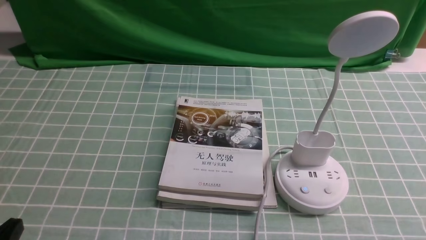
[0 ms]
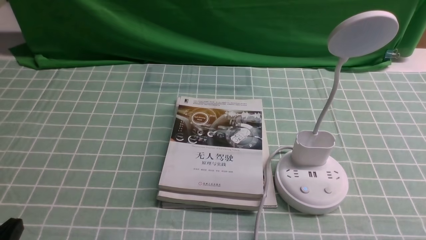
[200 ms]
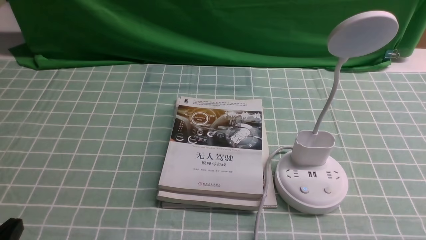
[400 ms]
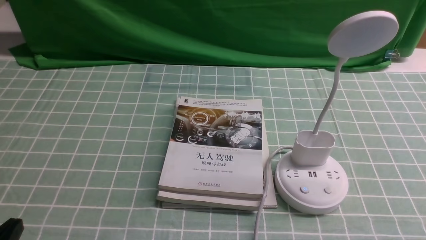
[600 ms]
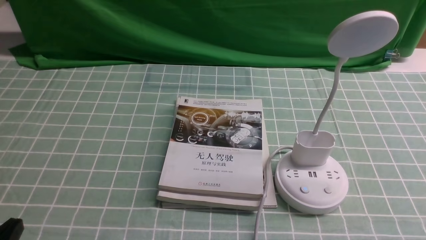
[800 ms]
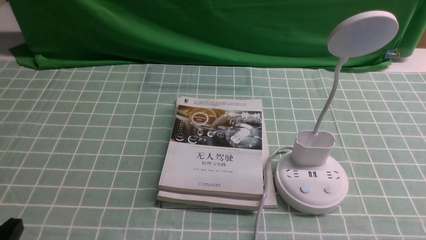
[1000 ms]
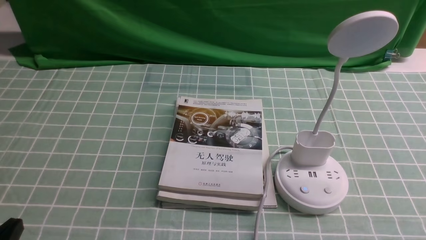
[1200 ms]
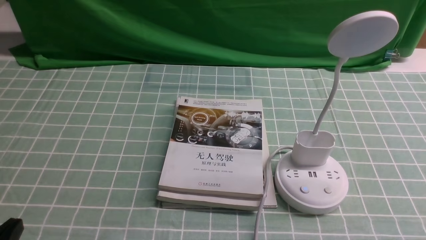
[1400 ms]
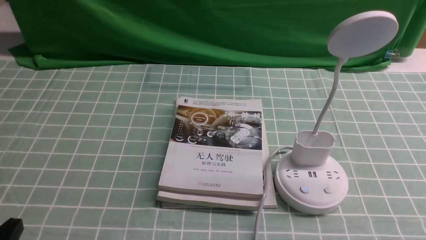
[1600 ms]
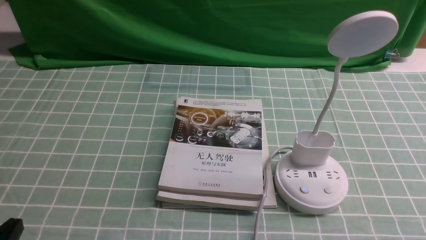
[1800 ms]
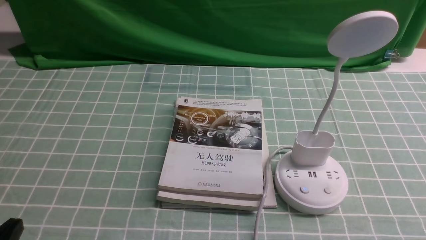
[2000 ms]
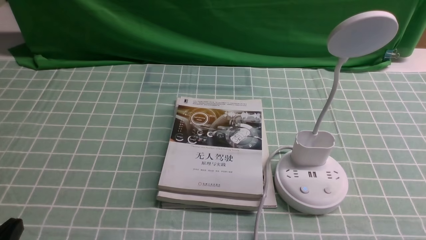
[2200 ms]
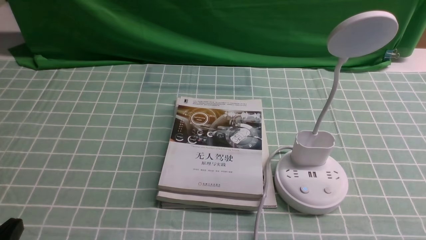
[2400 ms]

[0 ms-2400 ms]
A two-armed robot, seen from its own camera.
Task of the whole recording: turn off the desk lamp on the blue coffee tablecloth by hand.
0 ms to 1200 ms: Both grippers stay about where they are.

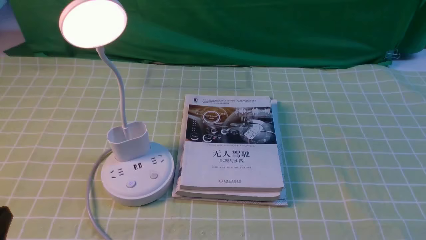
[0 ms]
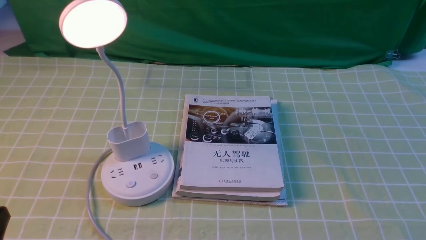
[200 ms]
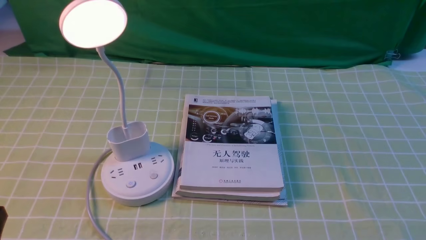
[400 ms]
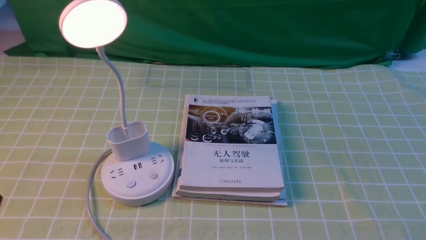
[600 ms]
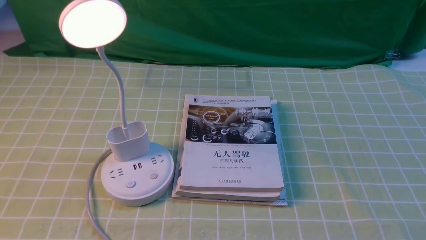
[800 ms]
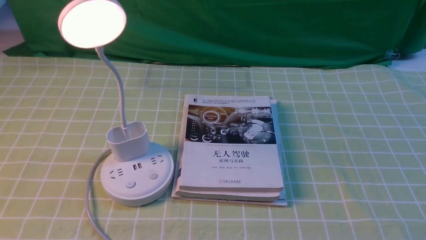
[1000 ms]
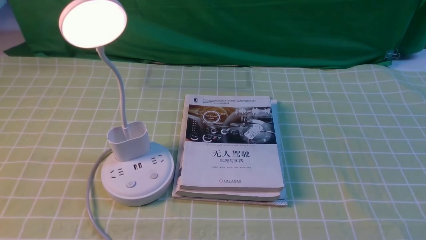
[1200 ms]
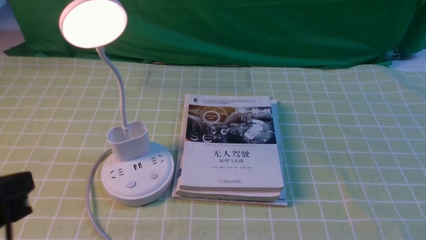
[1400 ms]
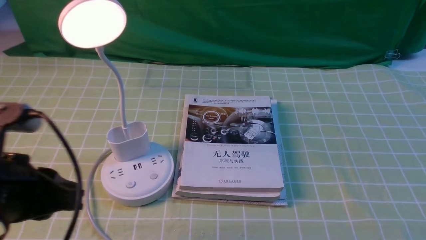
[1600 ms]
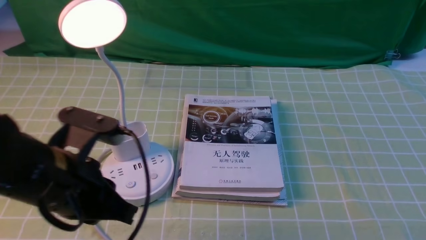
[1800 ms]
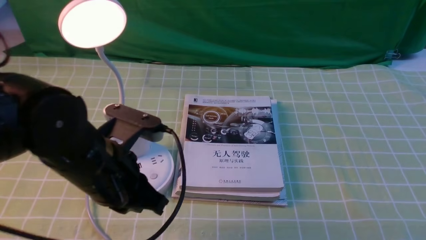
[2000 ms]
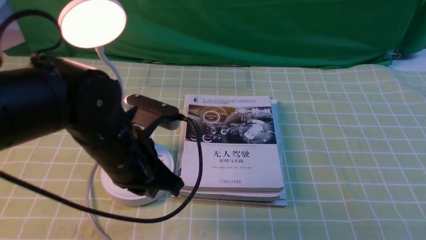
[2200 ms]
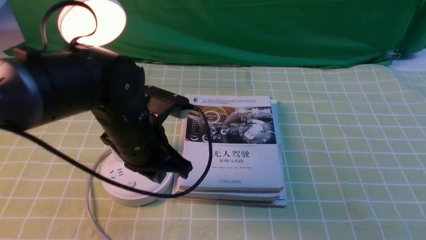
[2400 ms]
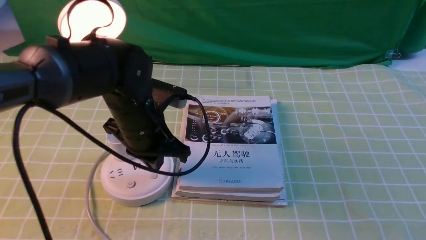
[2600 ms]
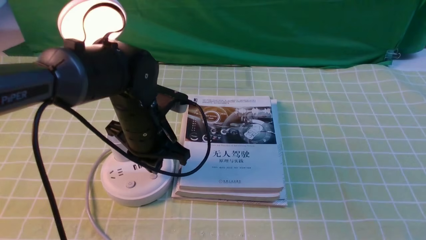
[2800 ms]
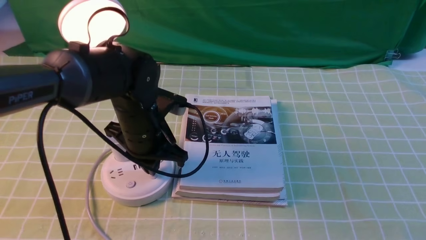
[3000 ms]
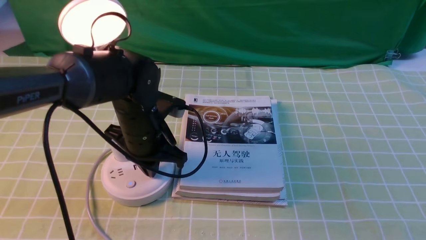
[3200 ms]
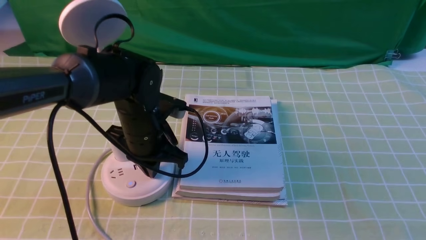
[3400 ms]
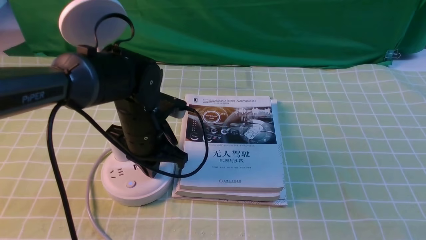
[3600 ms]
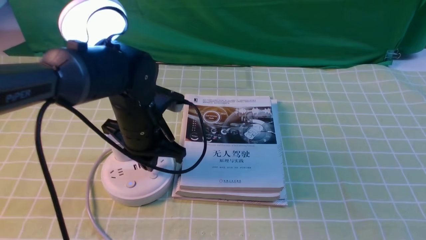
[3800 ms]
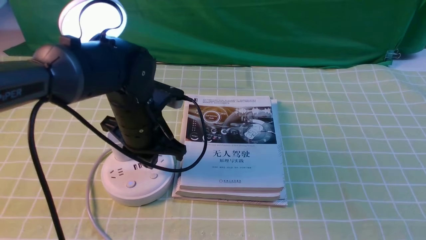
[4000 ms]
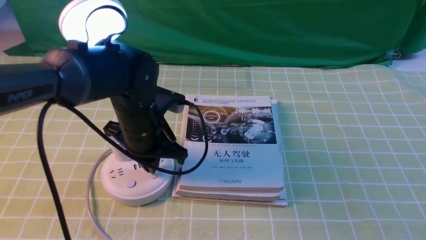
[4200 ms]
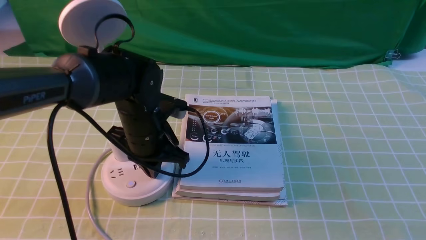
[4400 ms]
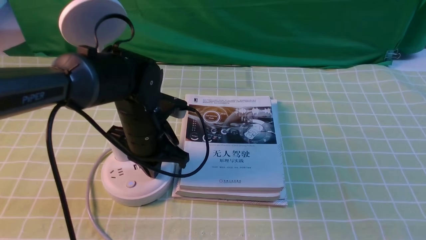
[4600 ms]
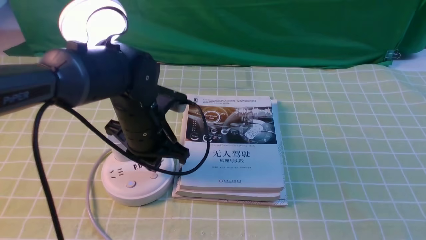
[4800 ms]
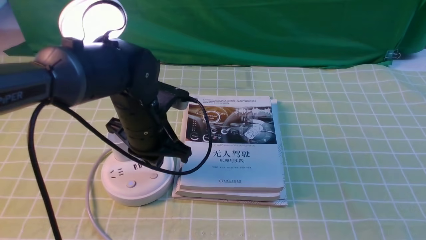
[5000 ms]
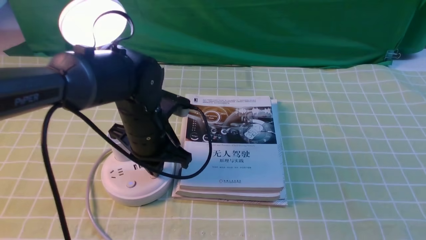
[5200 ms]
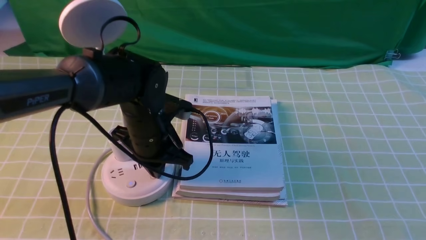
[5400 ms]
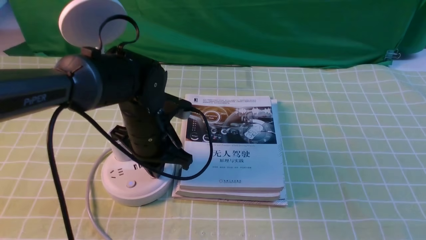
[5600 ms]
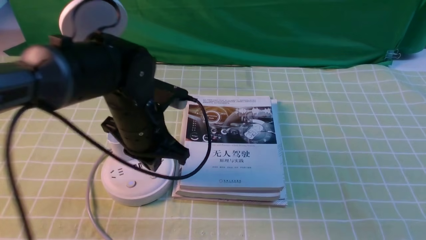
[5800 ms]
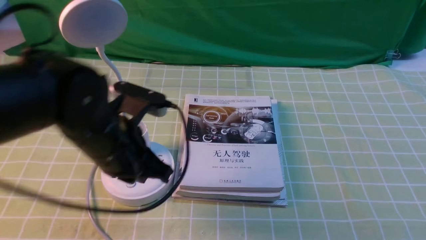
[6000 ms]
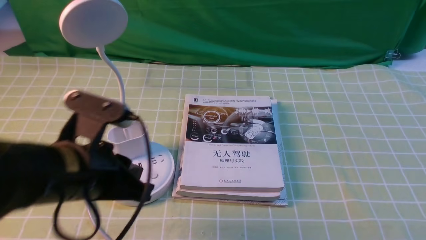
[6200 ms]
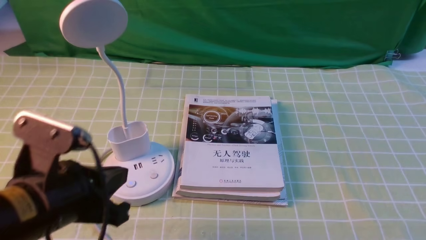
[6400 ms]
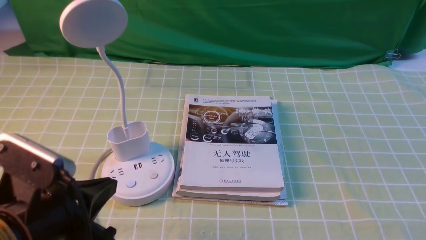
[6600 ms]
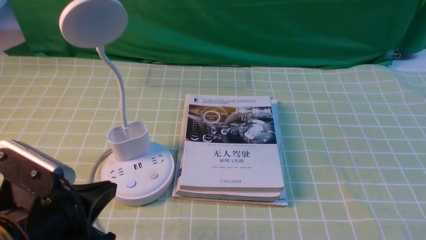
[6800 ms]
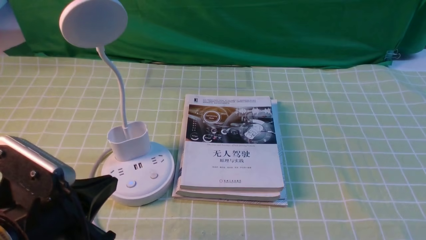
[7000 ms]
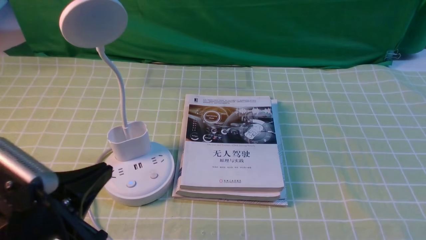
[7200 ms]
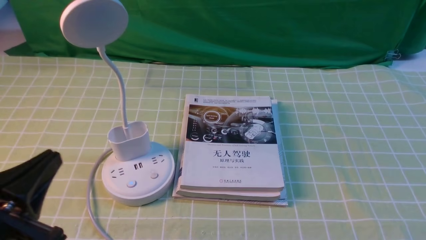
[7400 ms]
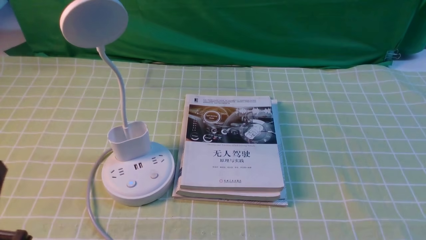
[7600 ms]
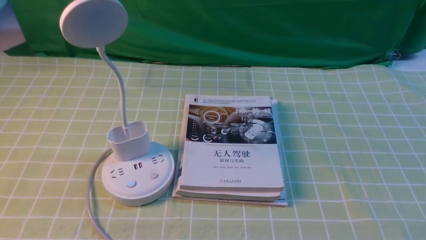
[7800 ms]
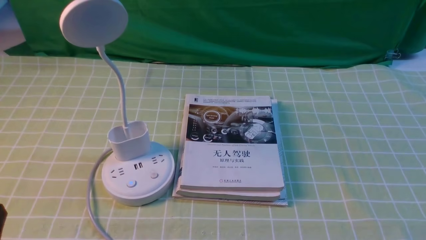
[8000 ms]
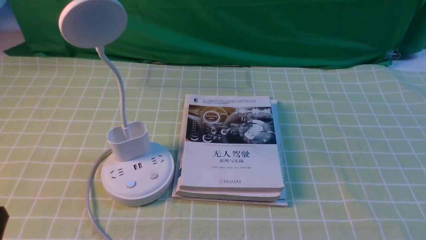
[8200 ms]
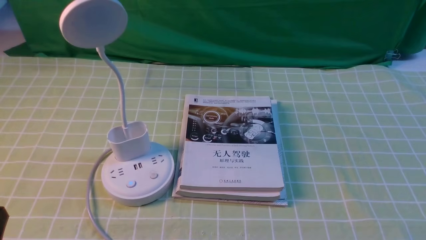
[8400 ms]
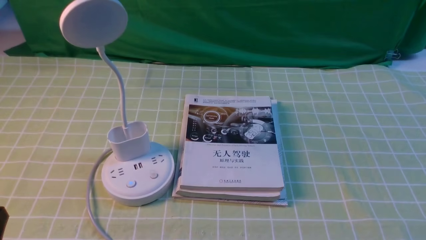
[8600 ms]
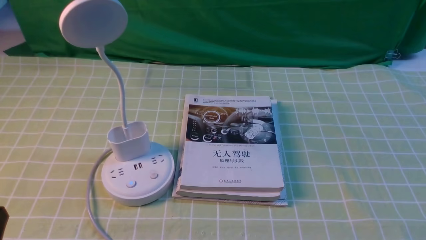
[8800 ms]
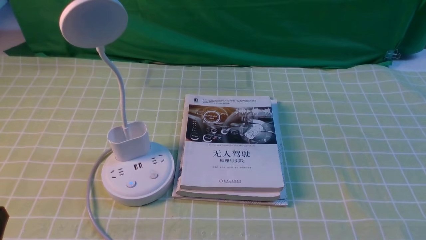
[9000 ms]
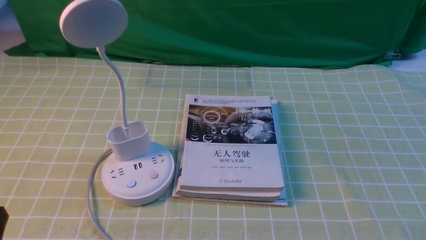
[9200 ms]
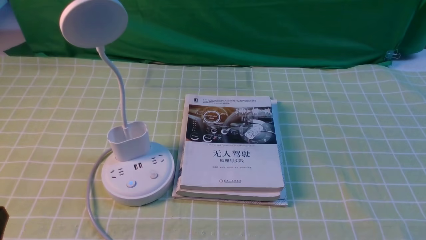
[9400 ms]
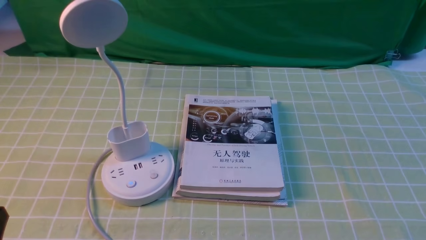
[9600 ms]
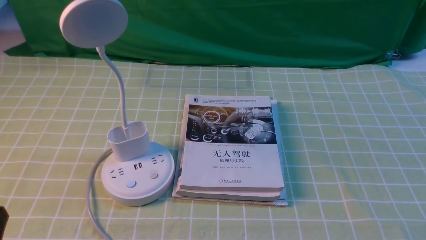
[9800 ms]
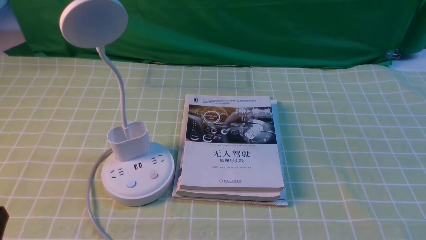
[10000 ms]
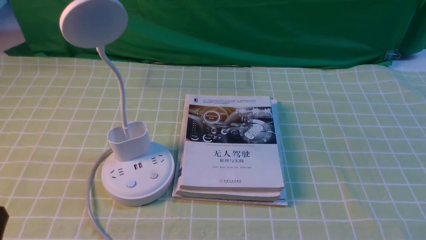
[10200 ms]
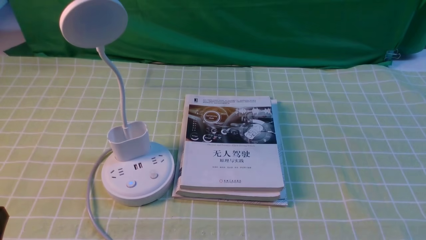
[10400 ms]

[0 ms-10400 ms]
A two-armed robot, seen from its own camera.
Task of the whole recording: turn off the desk lamp on the green coffee tablecloth by hand.
Step, 0 ms to 5800 ms: use the left arm to press the button switch on the lamp holder.
1400 ms to 3000 ms: The left gripper is displaced forward and to the right by about 30 cm.
3000 ms to 4400 ms: The grippers move only a little.
4400 ms to 6000 ms: The left gripper shifts approximately 10 cm backward and upward.
6000 ms to 7400 ms: The left gripper goes about 20 cm backward and to the left, and opens, then closes once more.
7400 ms to 9000 ms: The left gripper travels backward by some 5 cm.
9000 ms to 10400 ms: The two grippers keep their place.

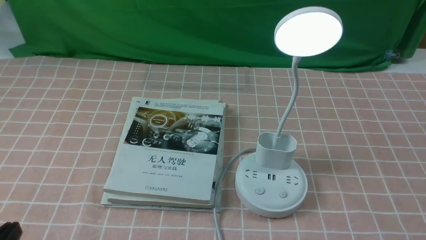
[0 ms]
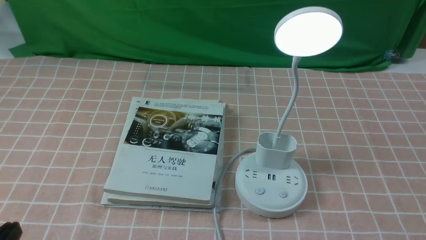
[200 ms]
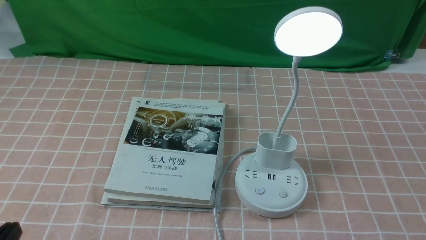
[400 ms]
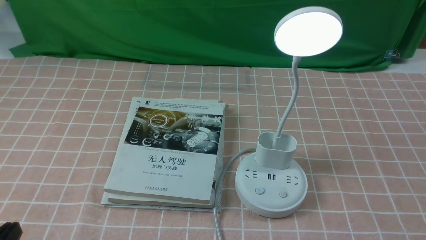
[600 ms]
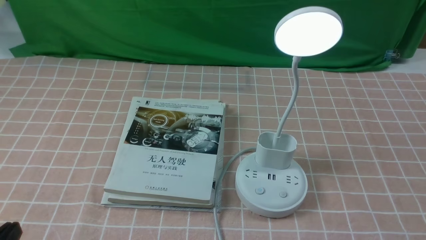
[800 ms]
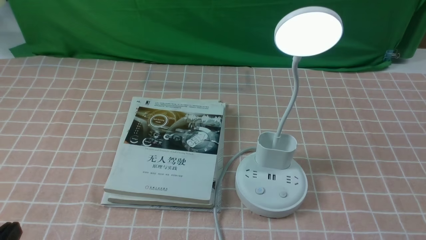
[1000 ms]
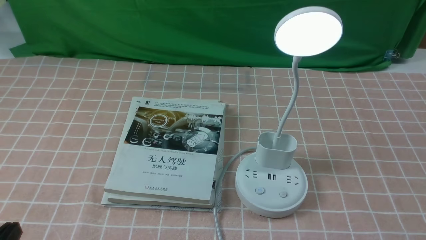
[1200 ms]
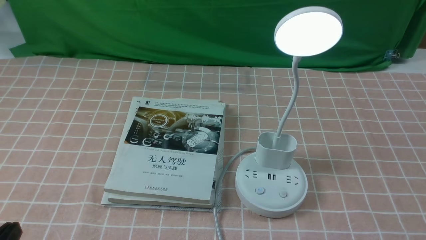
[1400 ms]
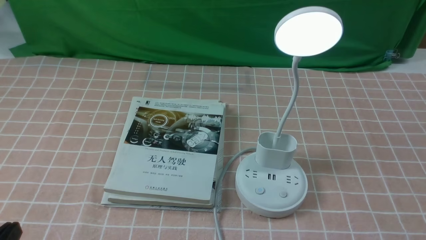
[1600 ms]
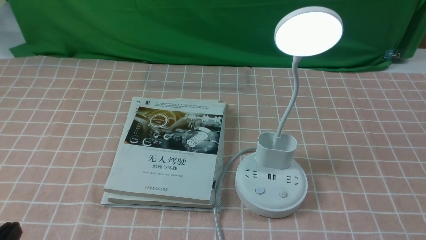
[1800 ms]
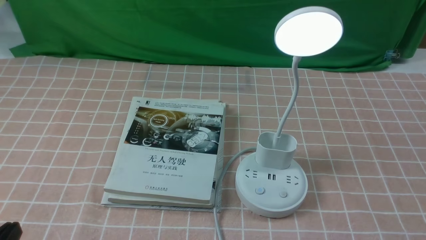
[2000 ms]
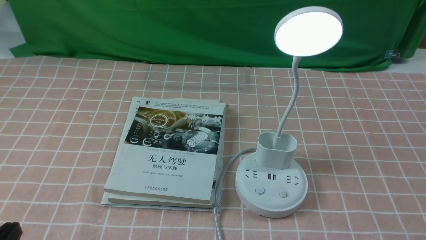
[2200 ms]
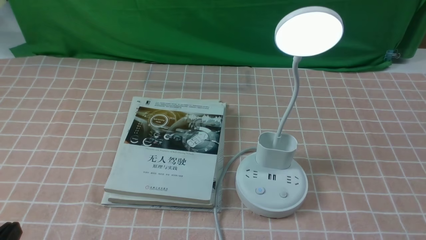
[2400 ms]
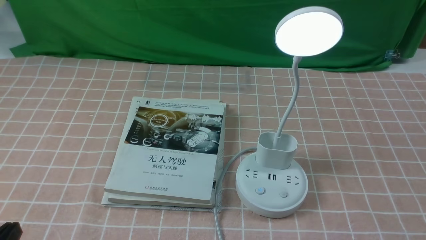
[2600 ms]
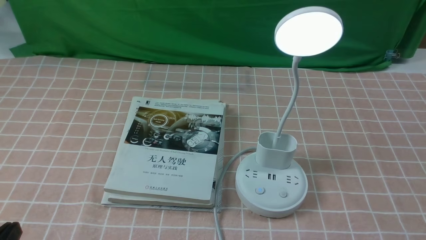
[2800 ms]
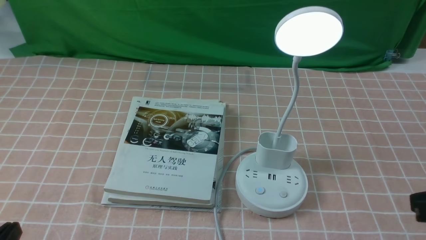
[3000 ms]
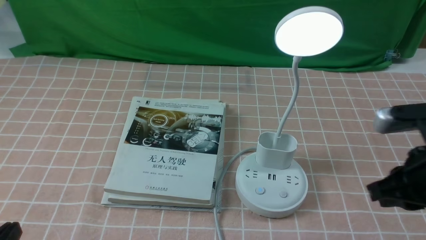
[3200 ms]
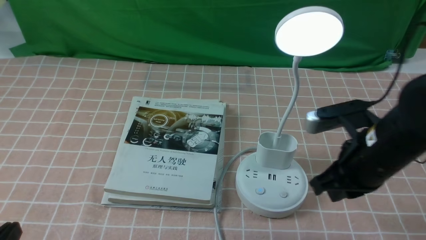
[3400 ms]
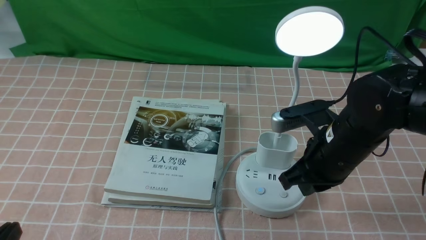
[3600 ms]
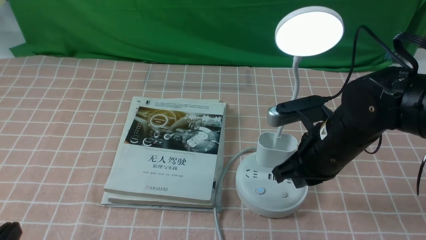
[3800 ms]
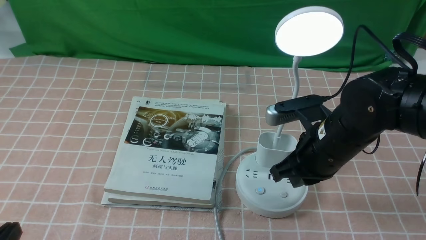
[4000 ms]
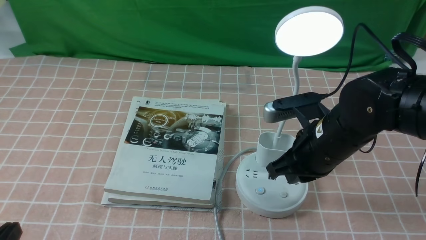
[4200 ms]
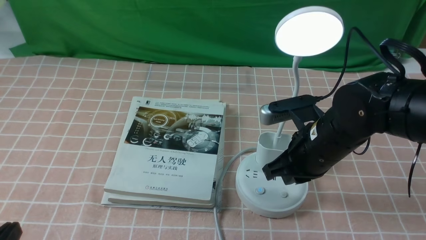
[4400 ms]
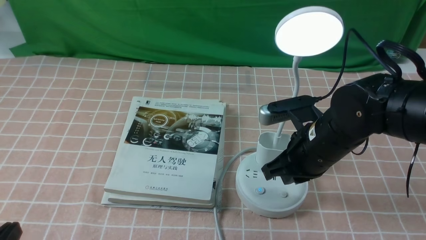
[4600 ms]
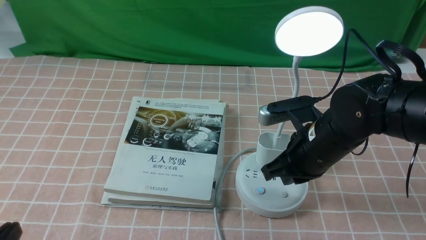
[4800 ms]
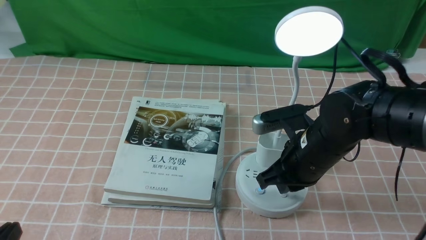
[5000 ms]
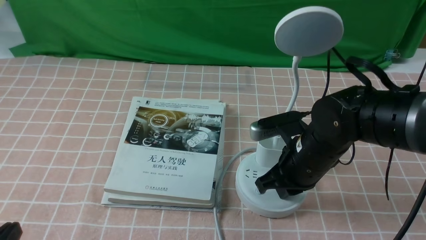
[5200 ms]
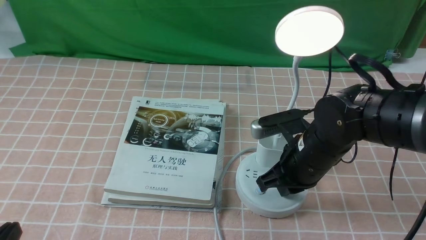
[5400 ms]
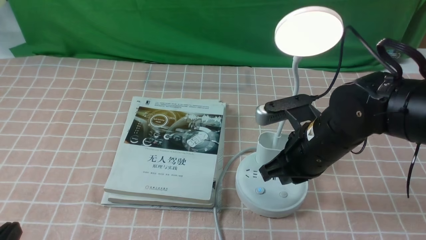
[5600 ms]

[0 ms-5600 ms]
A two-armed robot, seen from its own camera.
Task of the whole recording: turn off the table lamp on the pink coffee tablecloth by hand.
0 ms to 1400 ms: Both grippers stay put.
2800 ms to 4200 ms: The right gripper travels forward and to the left by approximately 25 cm.
4200 ms to 5600 ms: The grippers stay close to where they were, moving slightly.
